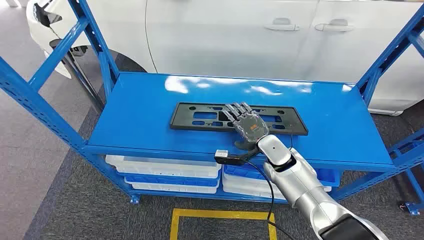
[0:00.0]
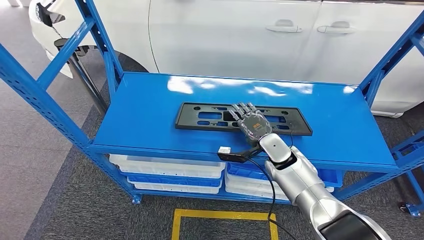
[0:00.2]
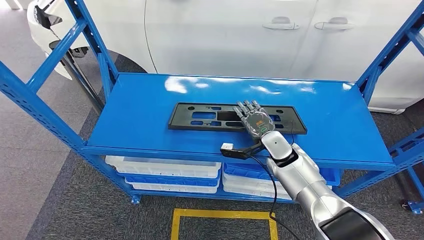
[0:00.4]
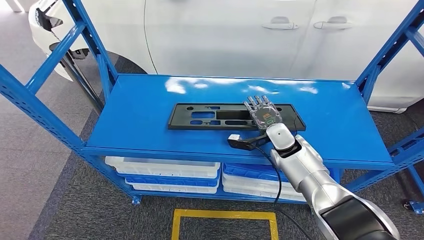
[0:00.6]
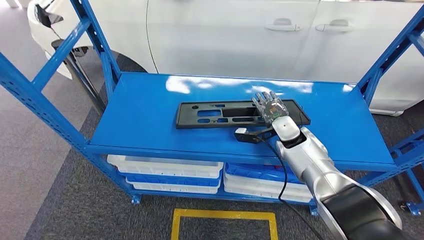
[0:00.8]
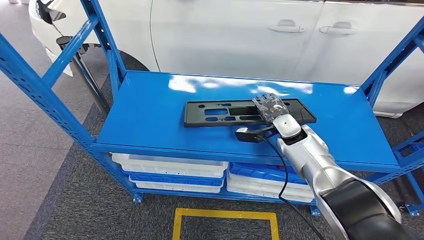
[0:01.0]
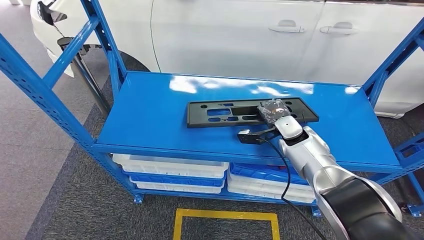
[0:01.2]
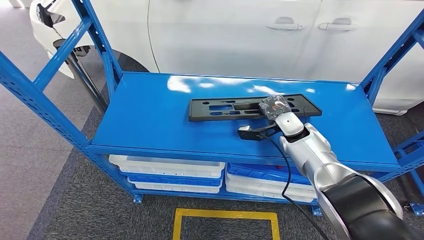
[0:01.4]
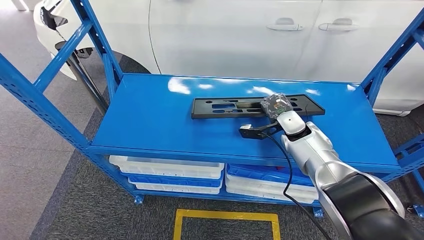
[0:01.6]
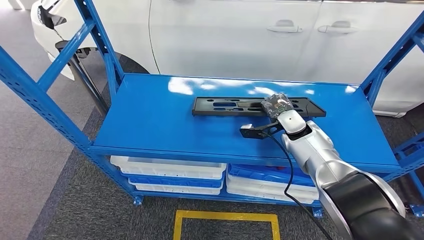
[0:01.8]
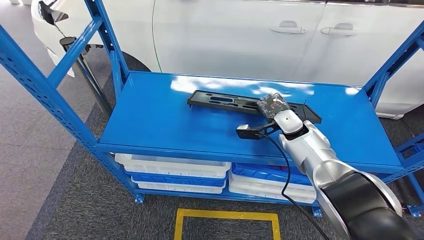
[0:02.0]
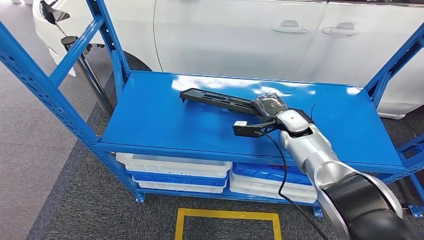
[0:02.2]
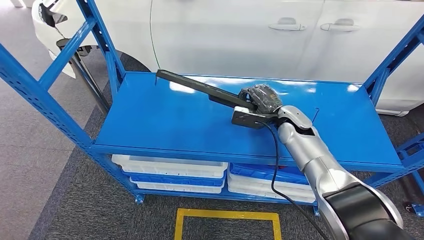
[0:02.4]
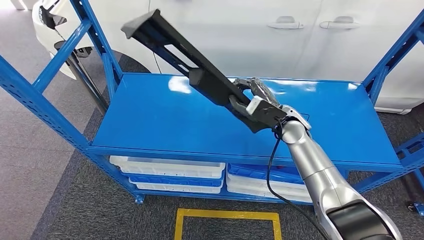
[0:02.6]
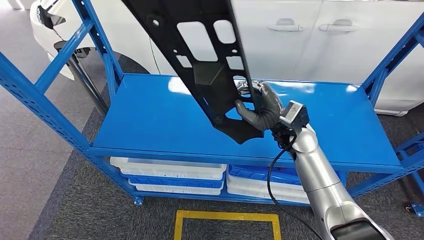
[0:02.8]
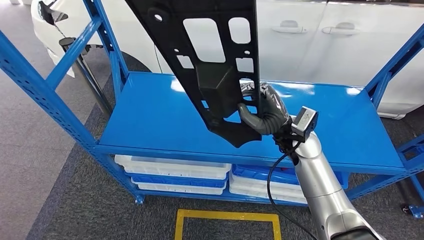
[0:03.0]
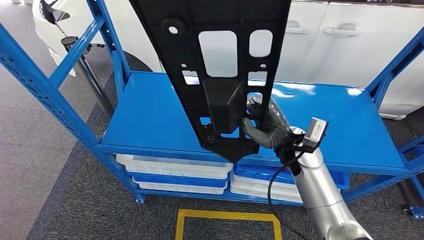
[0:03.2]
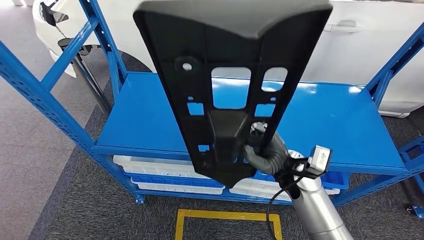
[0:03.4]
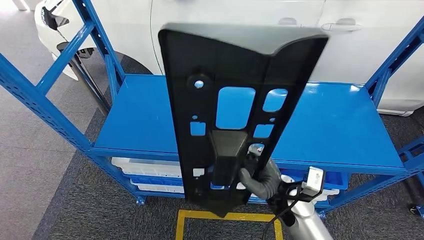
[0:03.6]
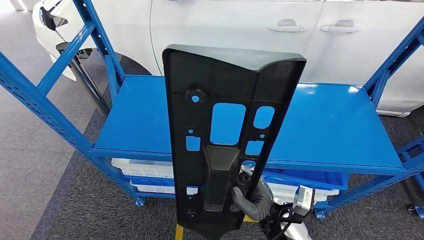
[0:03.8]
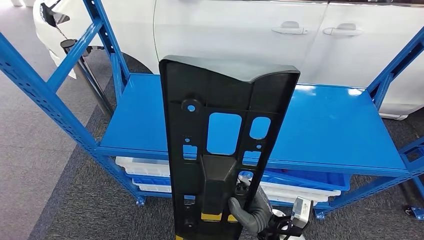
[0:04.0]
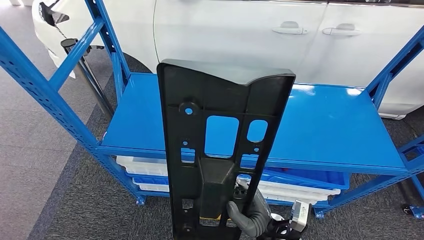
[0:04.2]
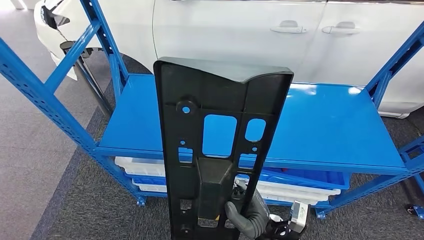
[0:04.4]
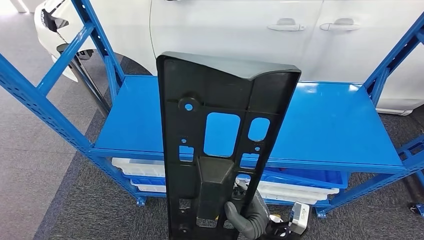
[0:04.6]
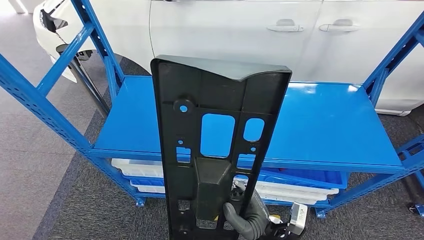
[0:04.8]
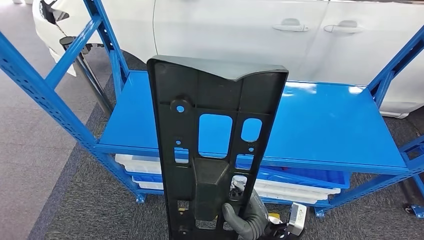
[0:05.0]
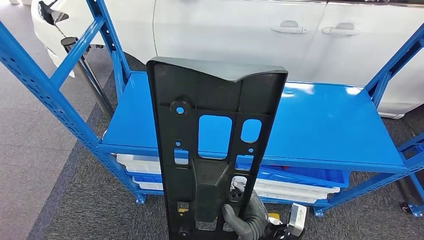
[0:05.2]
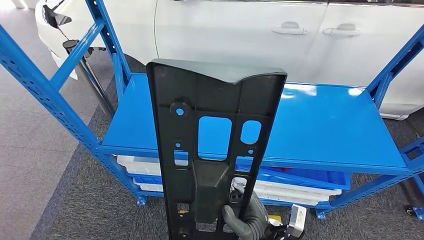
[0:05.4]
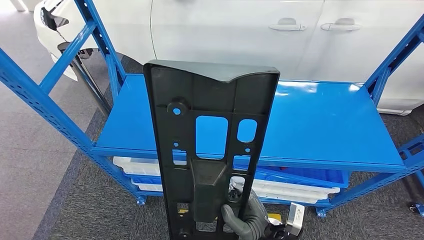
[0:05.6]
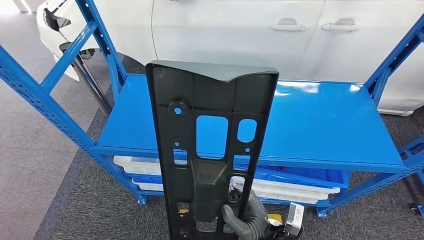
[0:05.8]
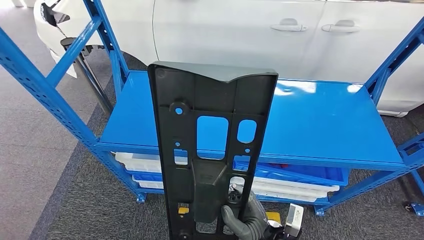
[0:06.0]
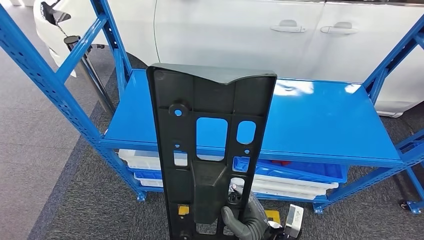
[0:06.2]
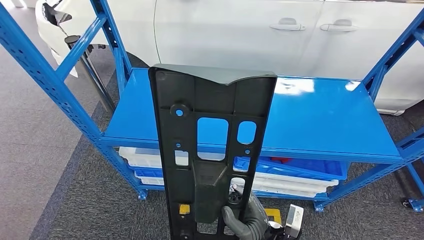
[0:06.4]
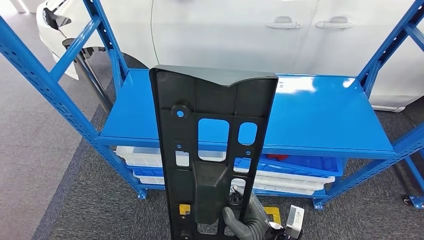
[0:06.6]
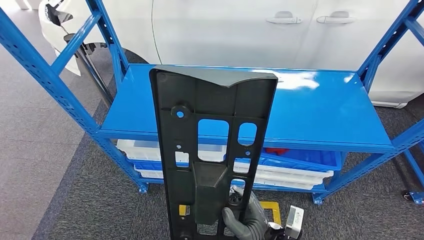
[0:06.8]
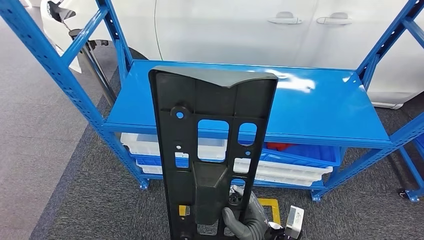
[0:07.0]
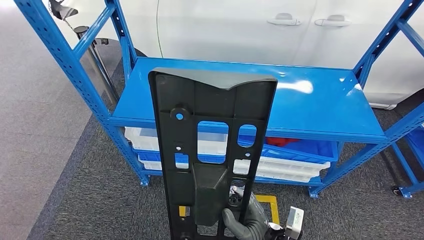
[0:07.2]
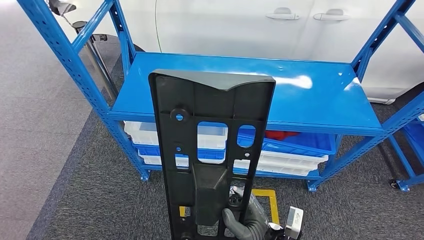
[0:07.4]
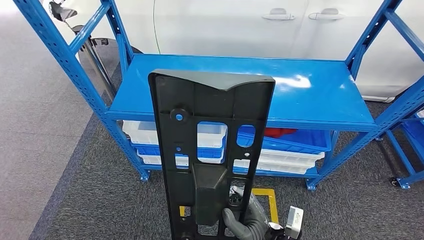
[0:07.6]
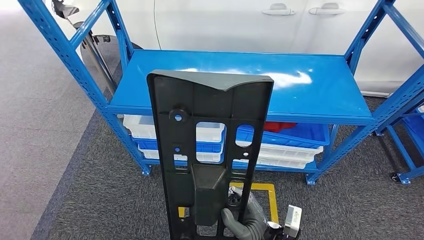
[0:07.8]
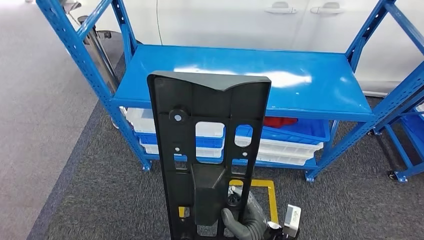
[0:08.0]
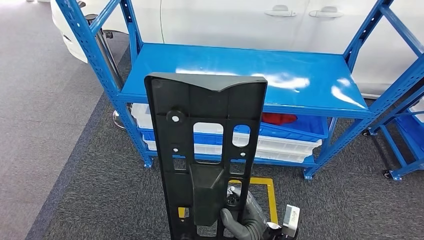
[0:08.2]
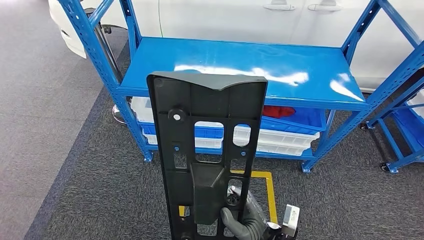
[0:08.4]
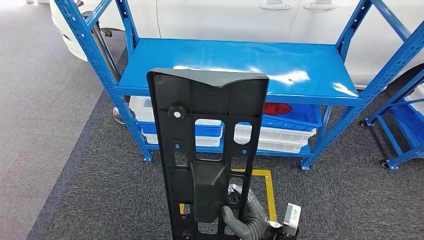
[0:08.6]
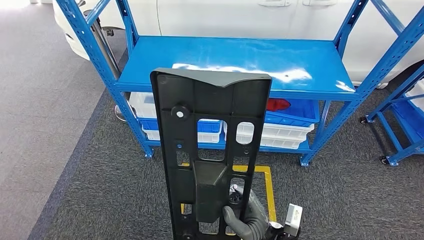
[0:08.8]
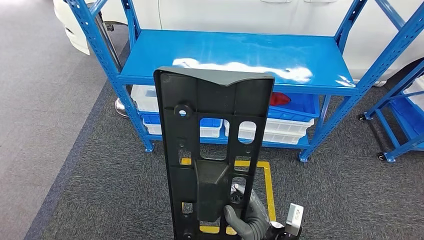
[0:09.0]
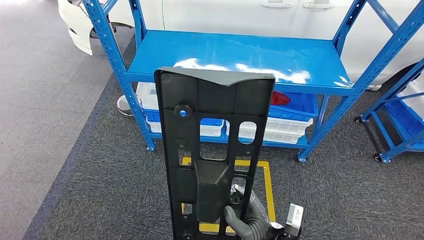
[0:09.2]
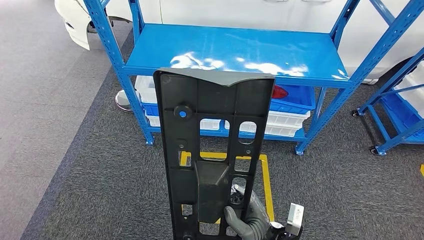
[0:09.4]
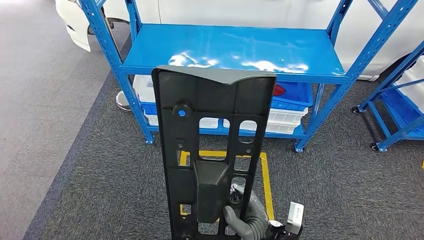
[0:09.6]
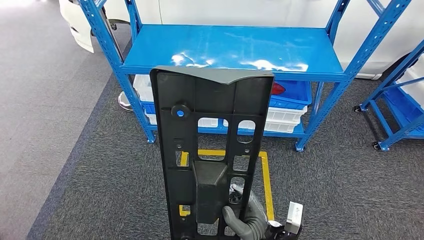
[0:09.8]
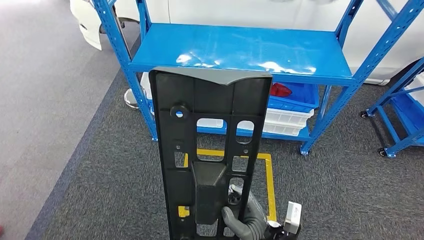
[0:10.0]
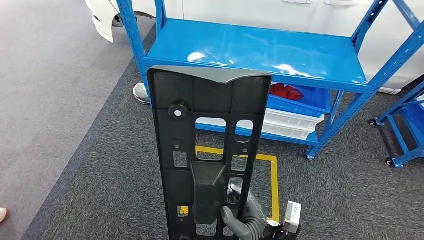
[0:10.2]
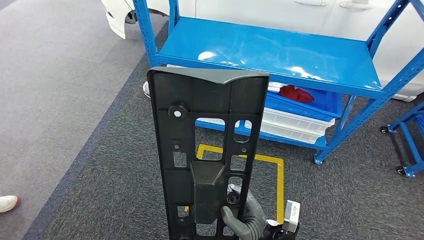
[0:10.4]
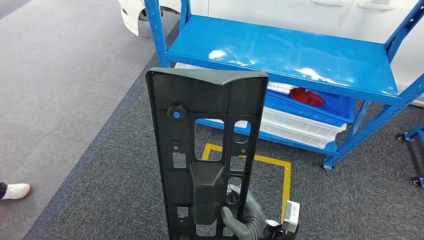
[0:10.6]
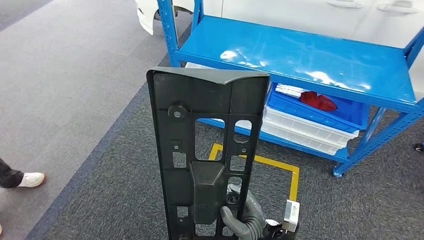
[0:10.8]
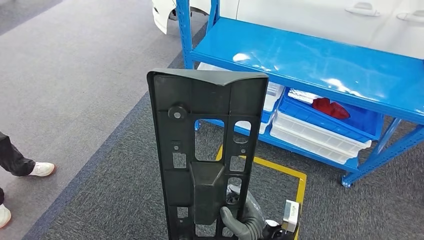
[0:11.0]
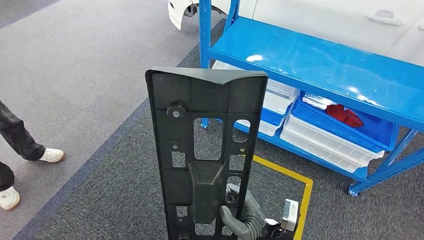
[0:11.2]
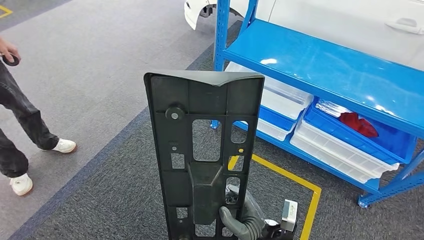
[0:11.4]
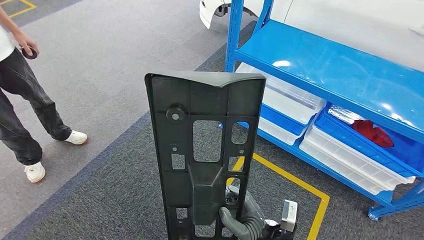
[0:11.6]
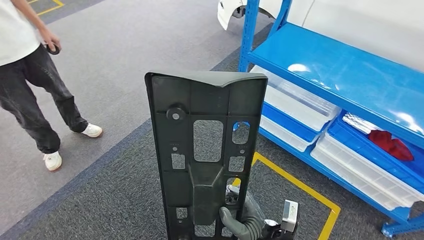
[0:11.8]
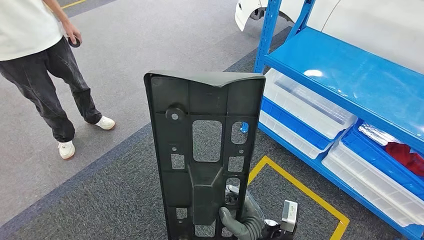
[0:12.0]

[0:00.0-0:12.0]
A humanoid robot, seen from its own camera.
Step, 0:00.0 to 0:04.8: Pick up the large material from the shelf.
0:04.4 to 0:06.0: Both hands stay put.

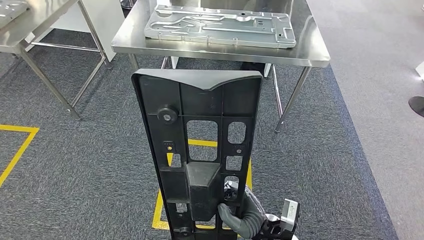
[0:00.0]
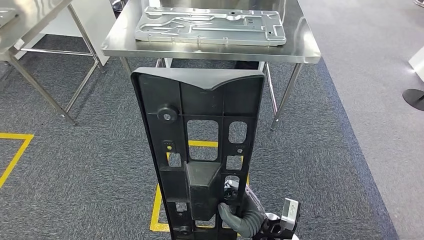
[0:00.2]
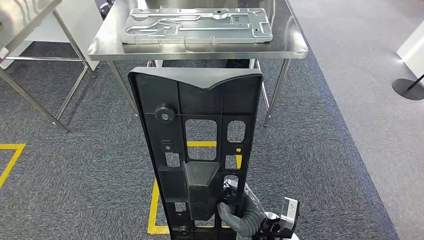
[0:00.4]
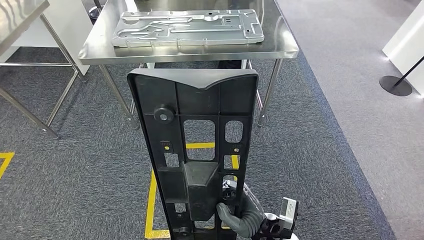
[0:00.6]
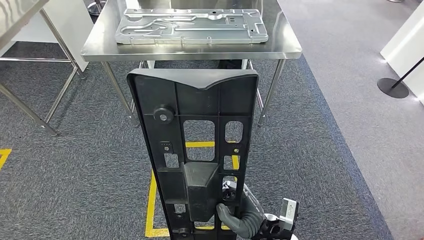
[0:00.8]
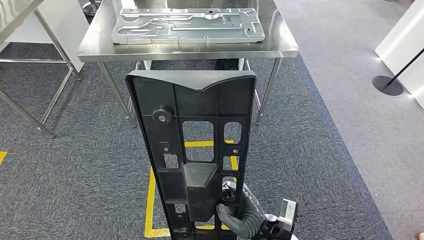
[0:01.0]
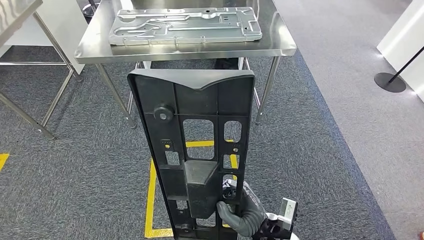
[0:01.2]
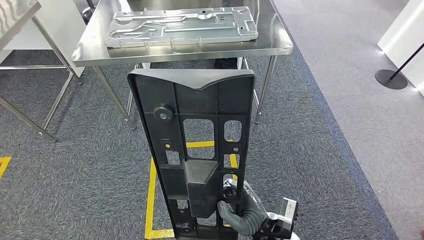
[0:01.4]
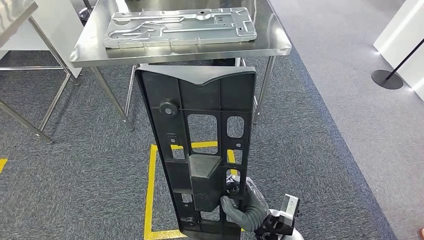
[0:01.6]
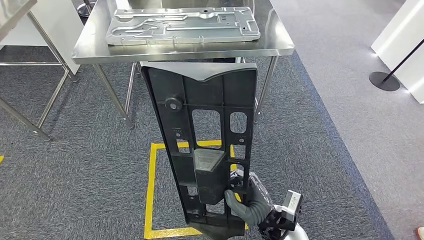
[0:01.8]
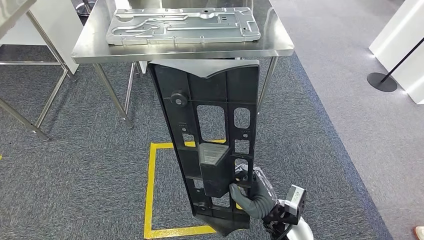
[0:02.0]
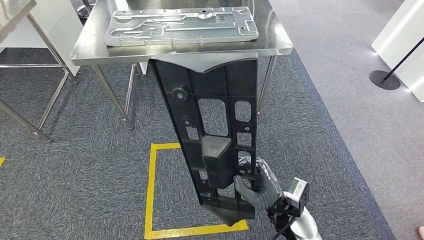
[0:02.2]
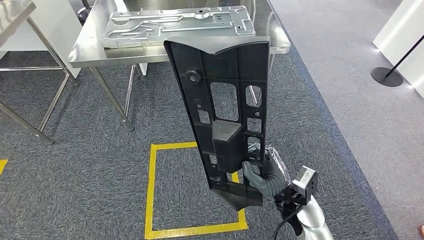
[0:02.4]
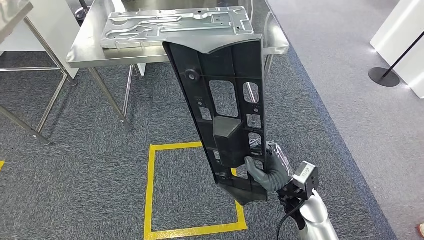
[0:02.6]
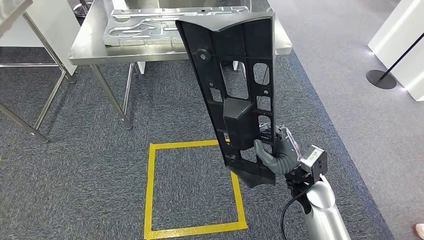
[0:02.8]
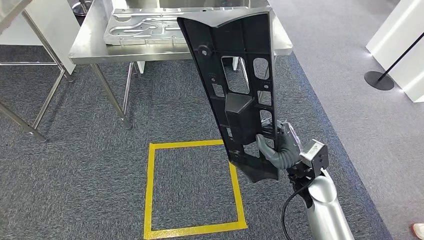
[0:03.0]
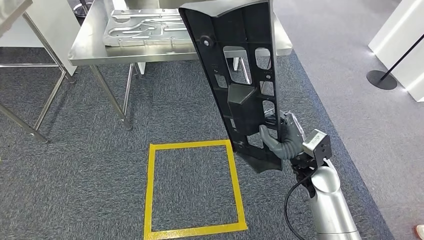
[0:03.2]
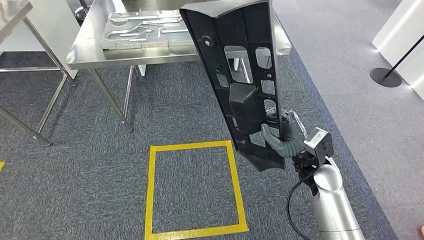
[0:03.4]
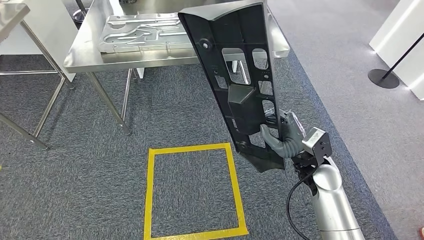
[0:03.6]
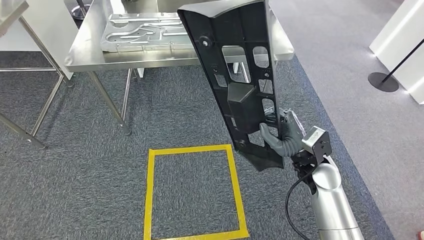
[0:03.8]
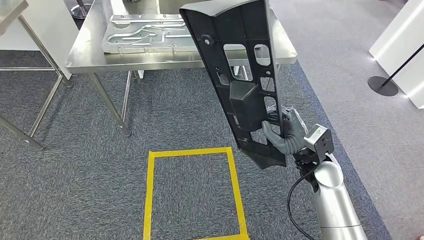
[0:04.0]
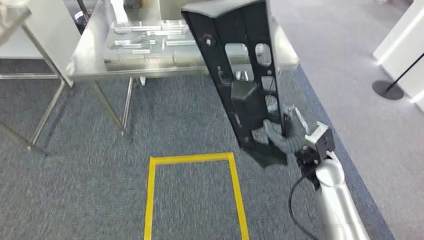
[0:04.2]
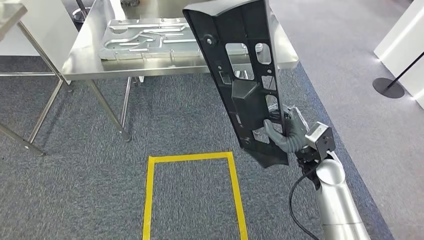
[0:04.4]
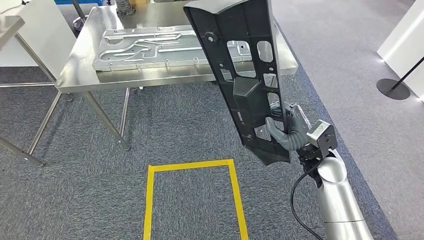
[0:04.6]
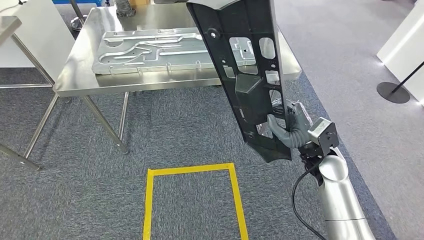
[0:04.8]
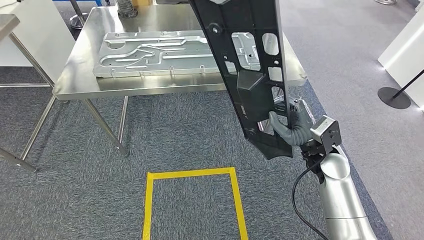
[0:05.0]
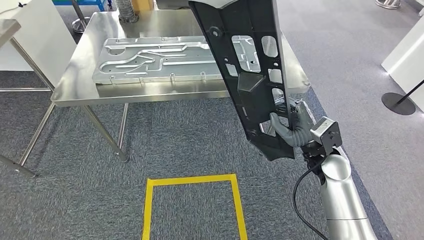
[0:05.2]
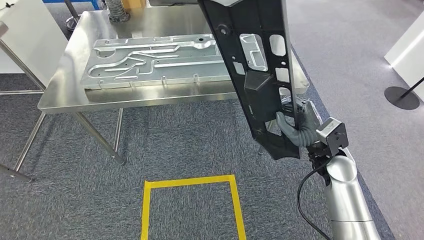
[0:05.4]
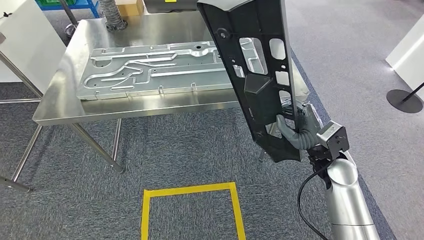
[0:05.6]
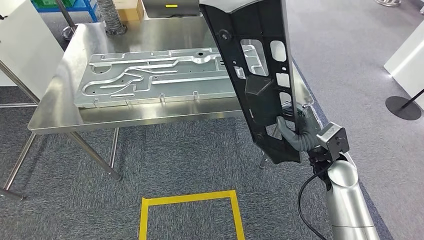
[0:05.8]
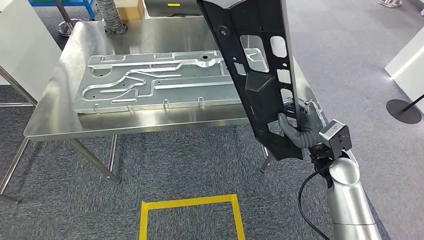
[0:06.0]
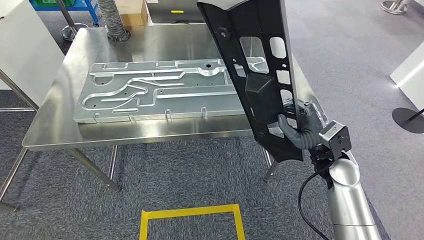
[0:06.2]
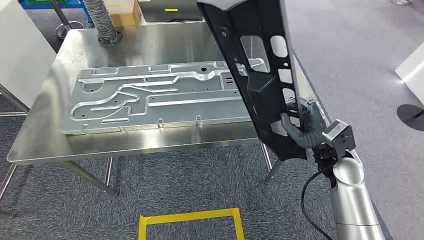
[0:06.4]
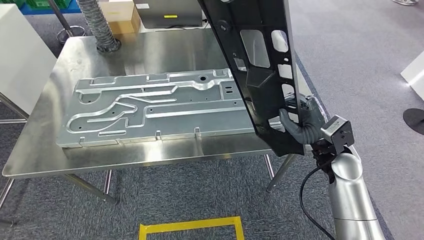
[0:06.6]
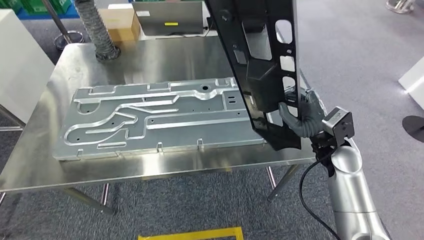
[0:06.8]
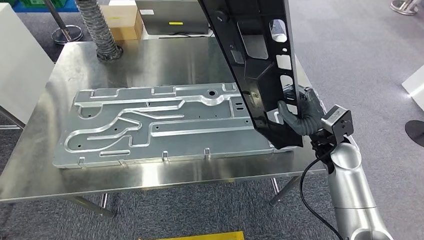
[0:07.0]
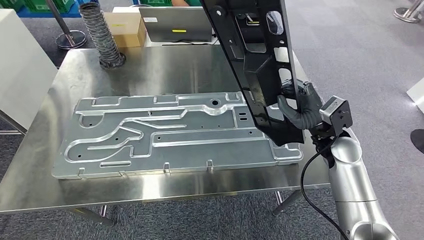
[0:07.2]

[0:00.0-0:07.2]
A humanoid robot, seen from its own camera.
Step, 0:00.0 to 0:04.4: Move the large material to the workbench.
